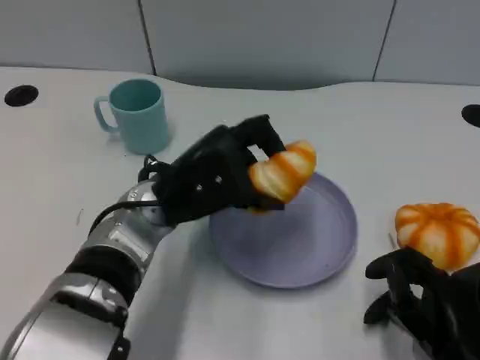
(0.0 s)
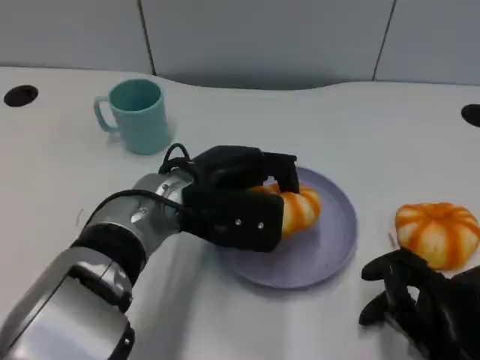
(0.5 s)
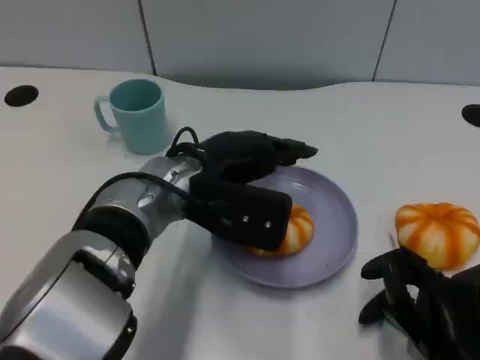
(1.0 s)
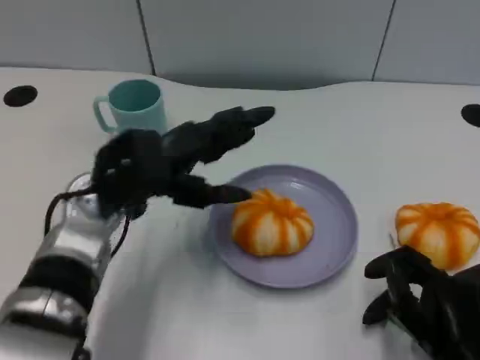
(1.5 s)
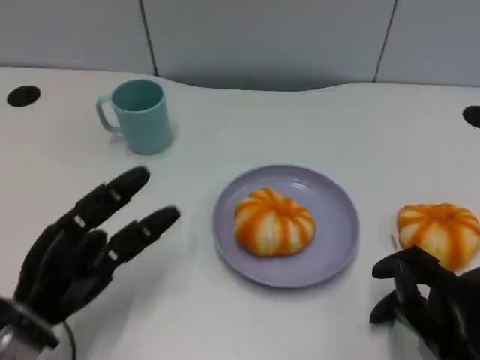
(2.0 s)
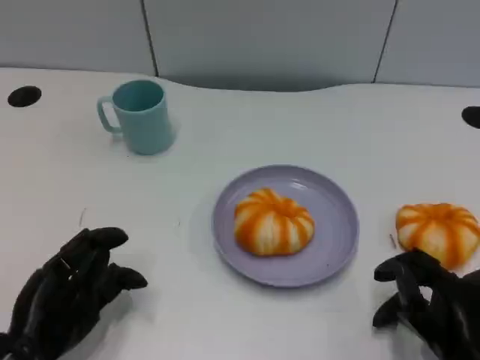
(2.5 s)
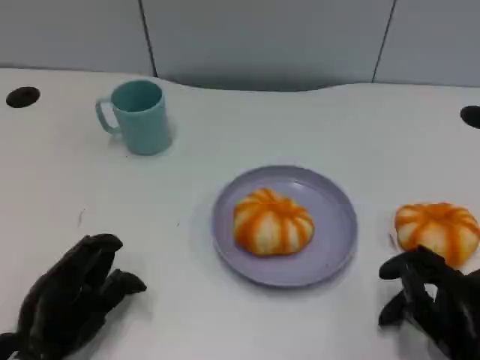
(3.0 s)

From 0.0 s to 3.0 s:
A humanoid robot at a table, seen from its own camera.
Task of the whole recording: Grasp the bread from the table and place it into the plate.
From 0.0 s to 1.5 s: The left hand moves to the left, approximately 5 cm.
From 1.5 s to 3.0 s: The left hand moves backward, downward and to the left, approximately 15 cm.
